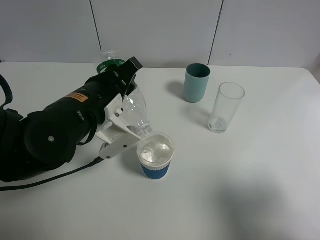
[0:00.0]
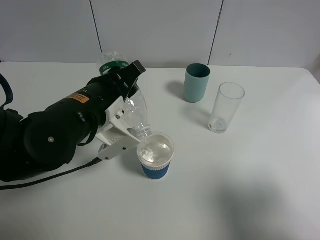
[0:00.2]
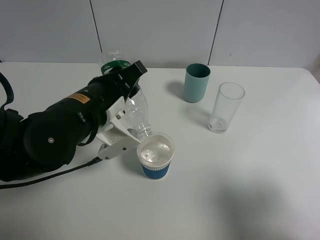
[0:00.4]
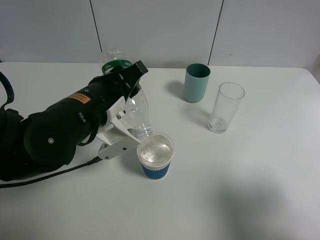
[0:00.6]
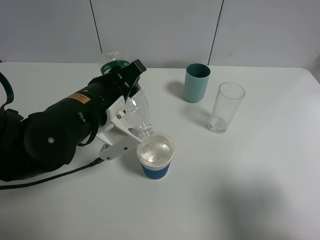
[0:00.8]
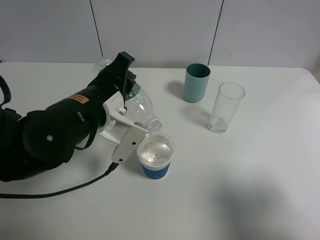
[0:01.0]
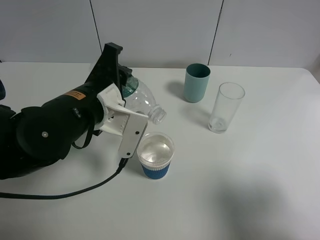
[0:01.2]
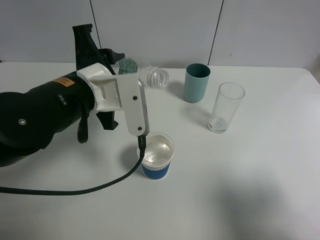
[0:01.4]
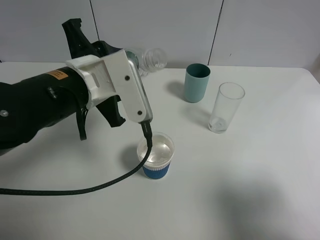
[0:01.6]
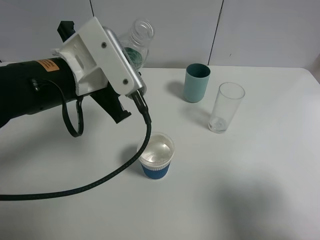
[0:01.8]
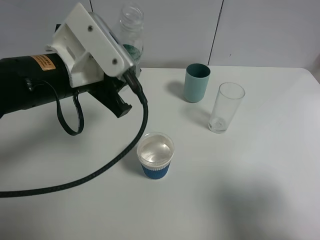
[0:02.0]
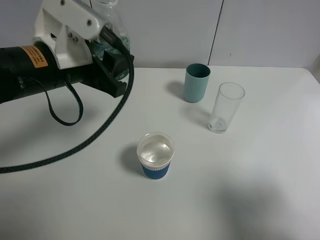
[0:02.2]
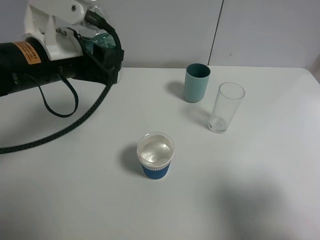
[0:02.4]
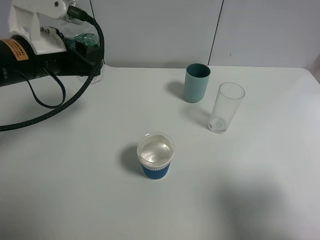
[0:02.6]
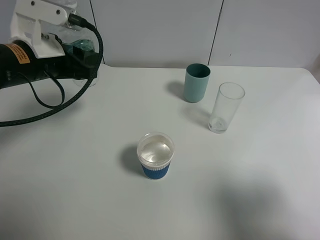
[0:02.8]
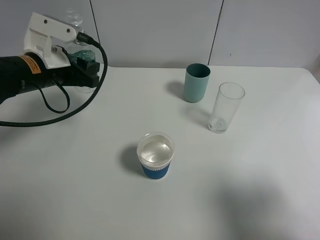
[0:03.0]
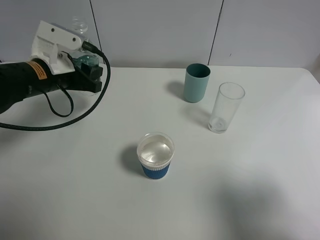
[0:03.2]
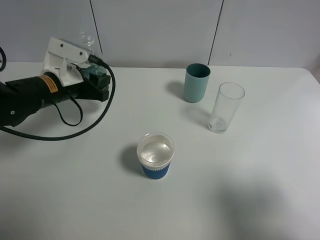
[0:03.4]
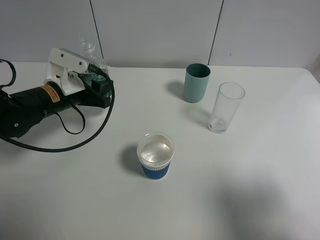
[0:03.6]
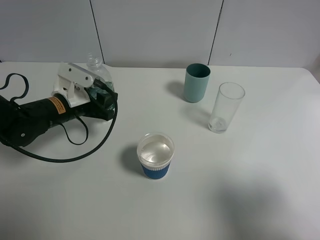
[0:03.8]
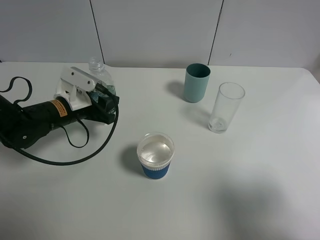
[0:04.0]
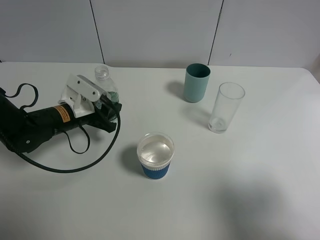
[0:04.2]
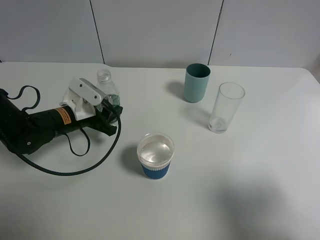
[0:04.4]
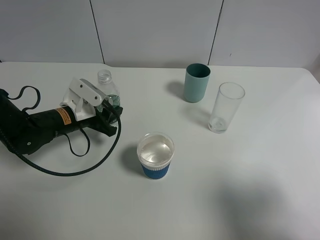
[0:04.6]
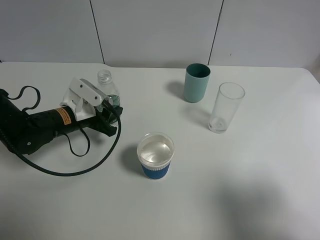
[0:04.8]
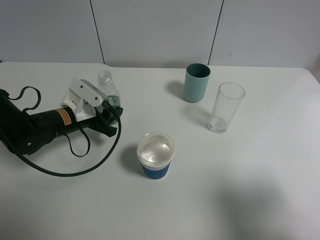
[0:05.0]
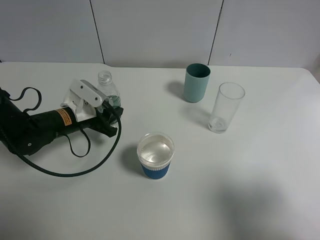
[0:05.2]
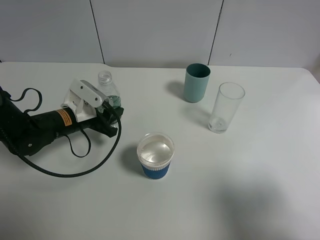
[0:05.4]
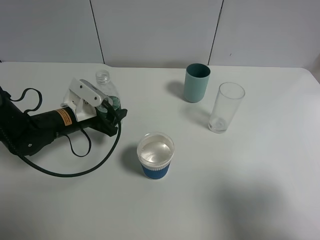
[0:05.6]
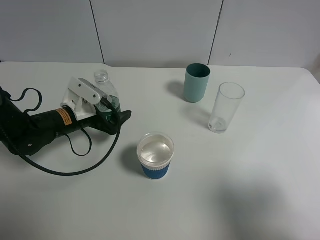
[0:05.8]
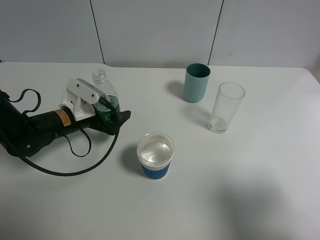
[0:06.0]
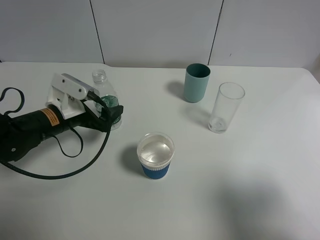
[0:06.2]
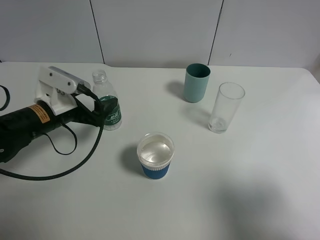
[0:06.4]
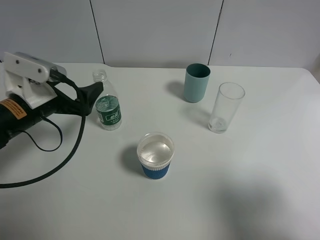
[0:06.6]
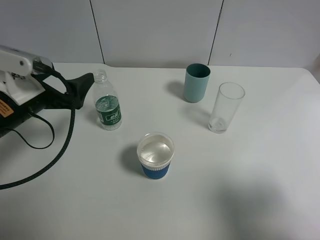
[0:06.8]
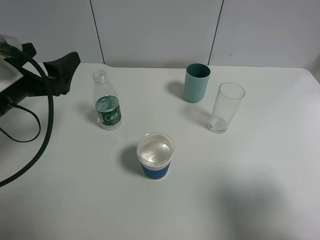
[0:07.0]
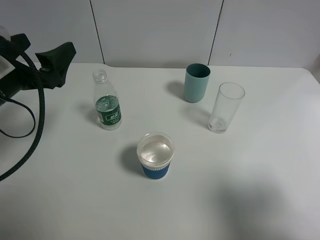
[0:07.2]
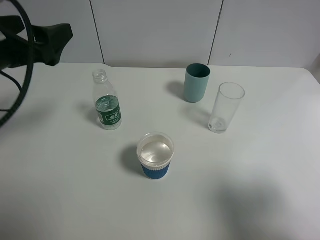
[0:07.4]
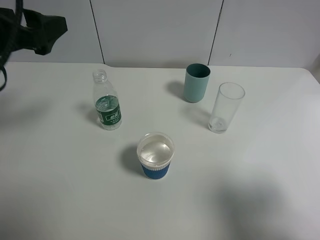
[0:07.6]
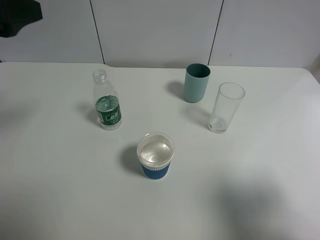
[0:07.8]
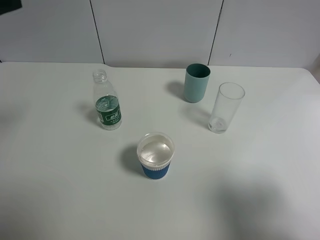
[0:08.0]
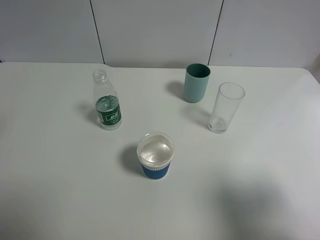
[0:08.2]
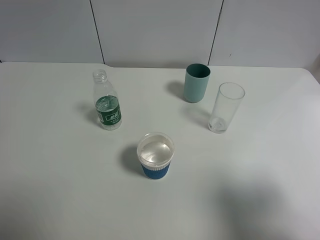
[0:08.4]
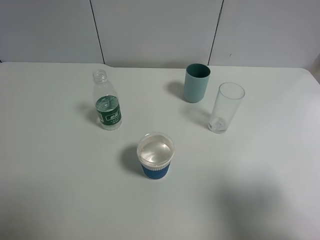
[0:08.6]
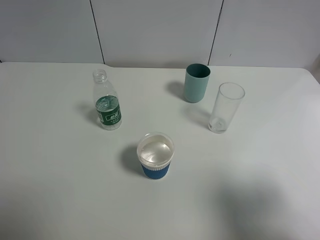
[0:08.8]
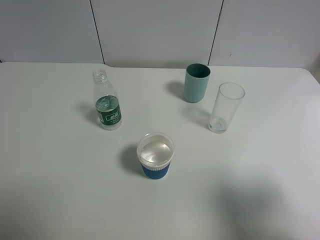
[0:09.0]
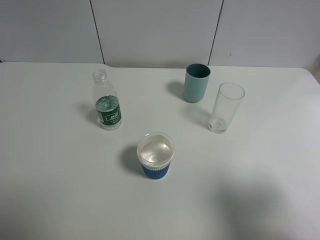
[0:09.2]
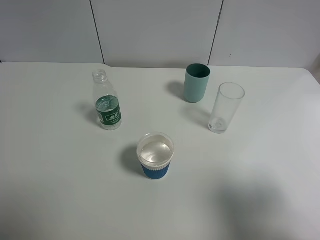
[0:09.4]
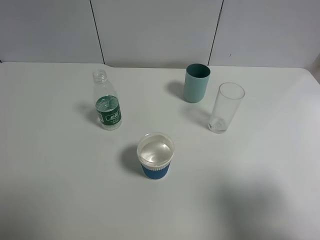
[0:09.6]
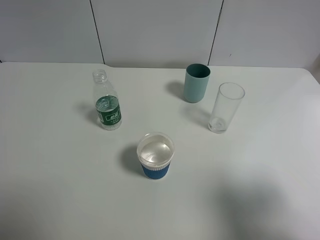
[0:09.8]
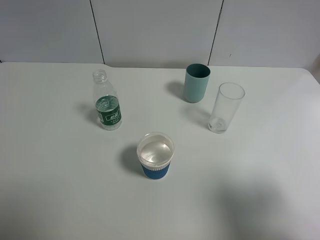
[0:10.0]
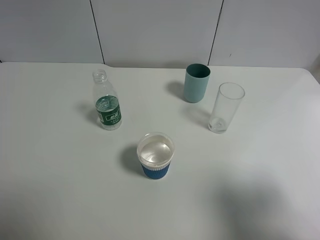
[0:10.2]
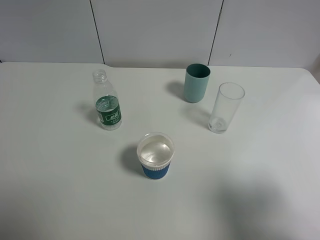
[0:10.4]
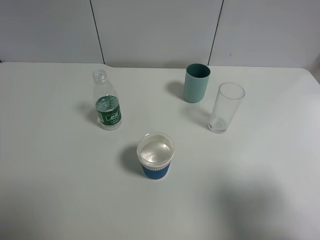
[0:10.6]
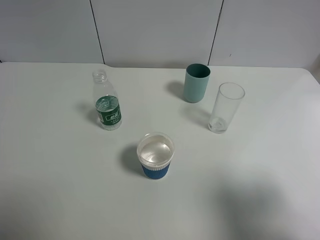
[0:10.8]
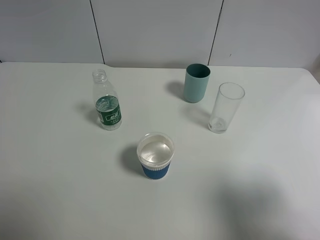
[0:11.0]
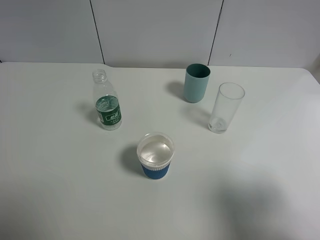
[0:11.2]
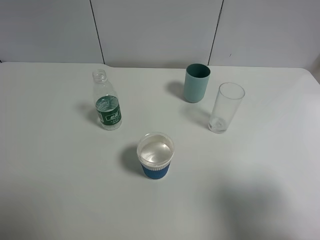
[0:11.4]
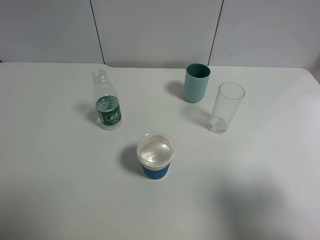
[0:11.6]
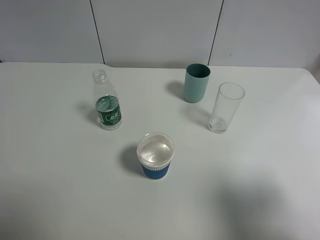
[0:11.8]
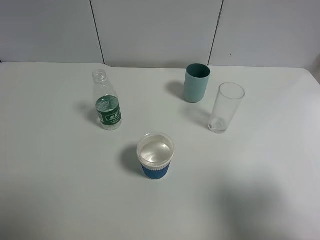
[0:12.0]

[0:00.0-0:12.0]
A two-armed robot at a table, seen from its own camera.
Task of the whole recording: use a gripper to hold the bottle of the drink and pour it into a random cup.
Step, 1.4 to 6.4 s: Place the mineral water bottle on the table with the left gripper.
1.6 to 3.0 s: The left gripper travels to the left and forward by some 15 cm.
3.0 to 4.4 s: The left gripper is displaced downward by some 10 cm.
4.4 to 6.0 s: The left gripper opens up.
6.0 to 7.6 s: The left gripper is displaced upward by approximately 20 cm.
7.6 to 9.0 s: The left gripper shifts approximately 20 cm backward.
10.4 to 12.0 s: Neither gripper changes place.

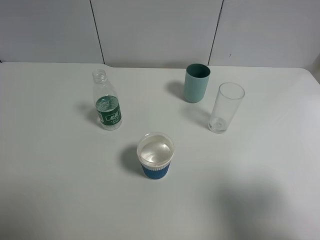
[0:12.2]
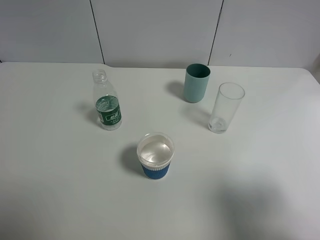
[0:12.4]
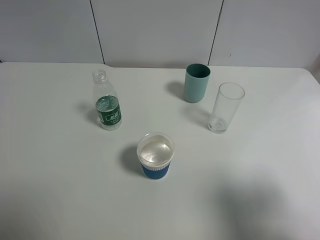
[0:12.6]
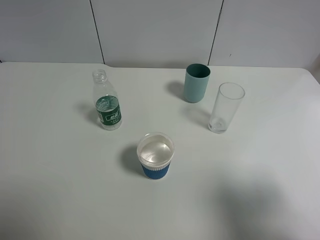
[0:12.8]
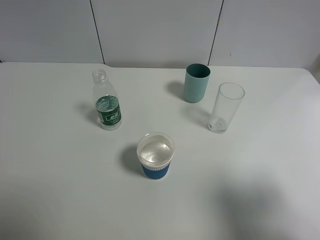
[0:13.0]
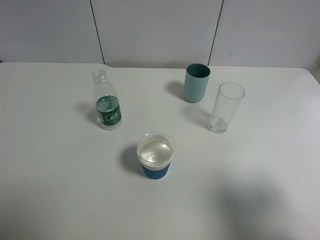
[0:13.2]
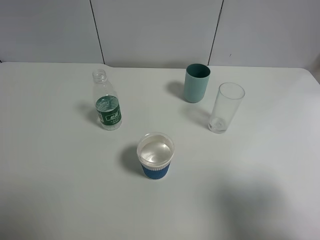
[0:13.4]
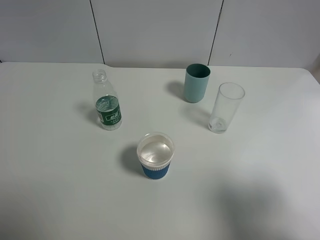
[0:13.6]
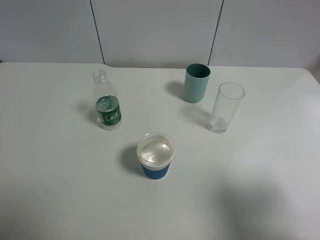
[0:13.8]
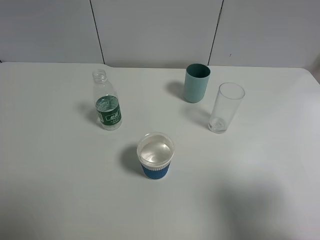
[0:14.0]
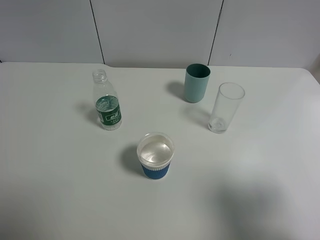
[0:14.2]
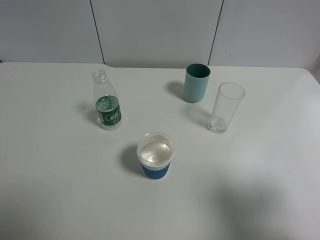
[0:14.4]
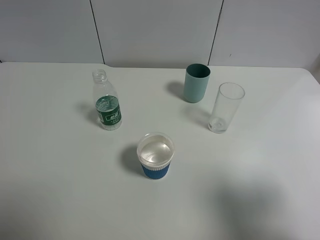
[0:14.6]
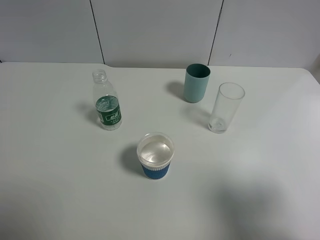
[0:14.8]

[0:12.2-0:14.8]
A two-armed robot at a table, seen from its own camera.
Task of the whole recording: use a gripper to hold the bottle of the drink and pour it into a random cup.
12.2 to 14.8 s: Both grippers stay put.

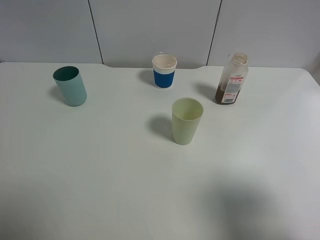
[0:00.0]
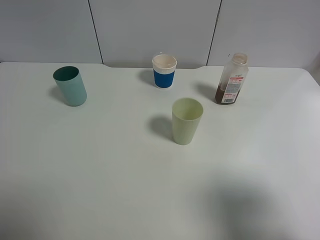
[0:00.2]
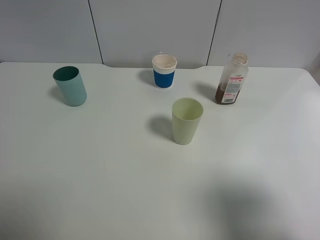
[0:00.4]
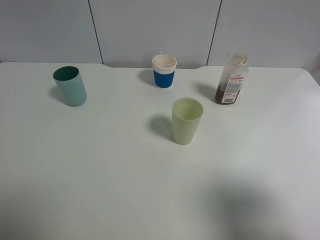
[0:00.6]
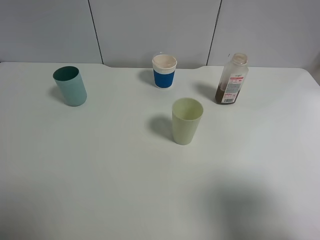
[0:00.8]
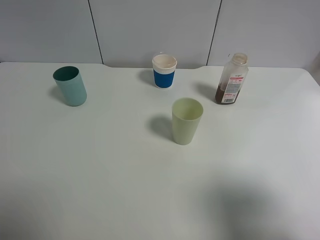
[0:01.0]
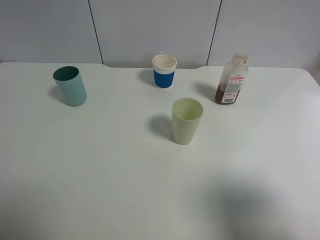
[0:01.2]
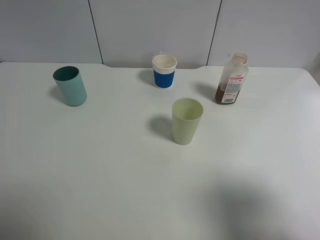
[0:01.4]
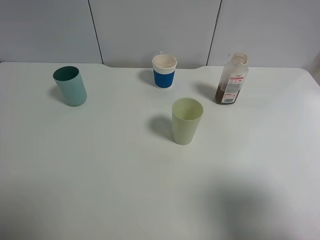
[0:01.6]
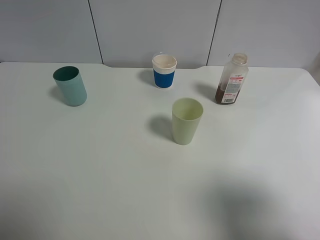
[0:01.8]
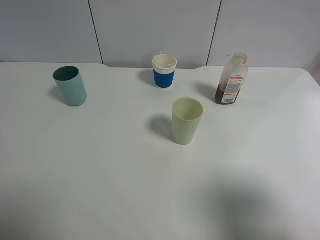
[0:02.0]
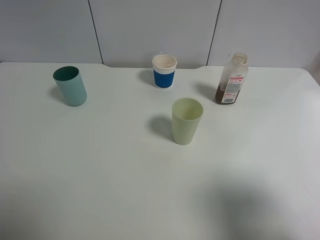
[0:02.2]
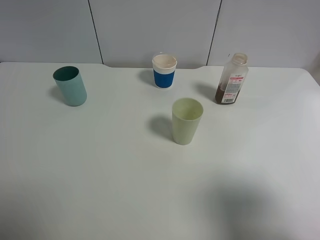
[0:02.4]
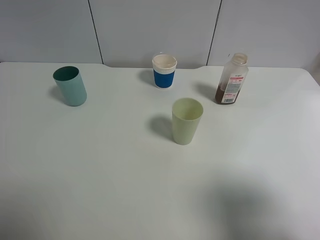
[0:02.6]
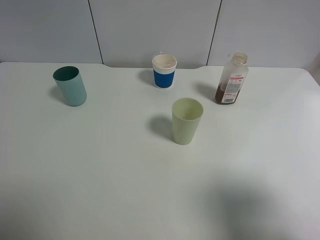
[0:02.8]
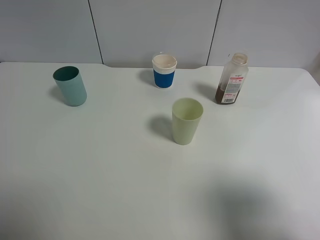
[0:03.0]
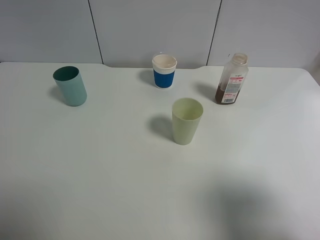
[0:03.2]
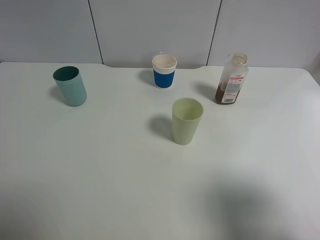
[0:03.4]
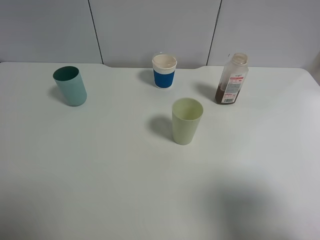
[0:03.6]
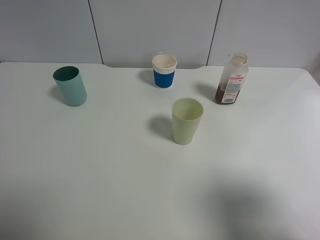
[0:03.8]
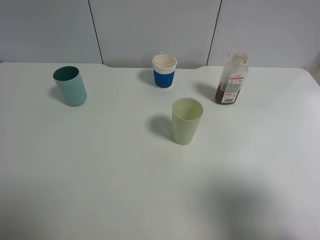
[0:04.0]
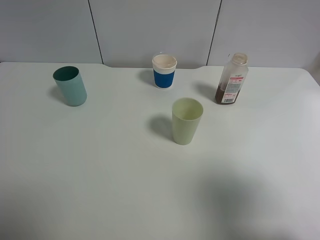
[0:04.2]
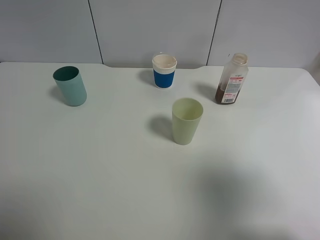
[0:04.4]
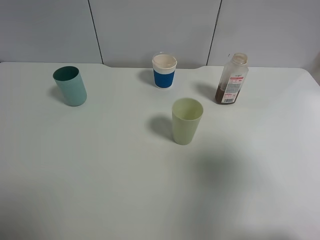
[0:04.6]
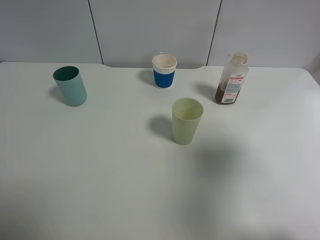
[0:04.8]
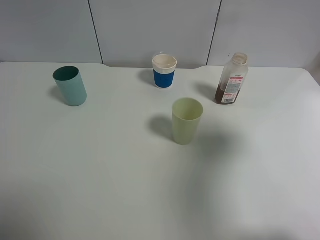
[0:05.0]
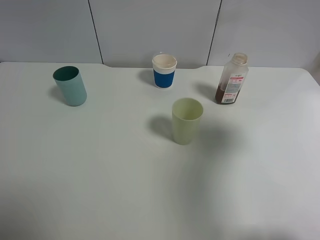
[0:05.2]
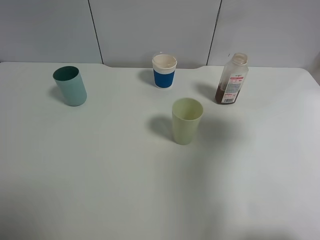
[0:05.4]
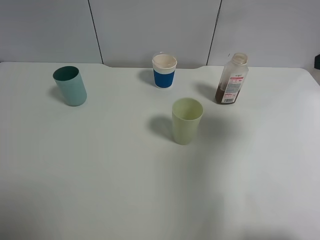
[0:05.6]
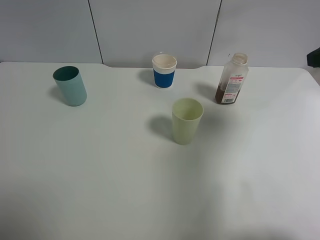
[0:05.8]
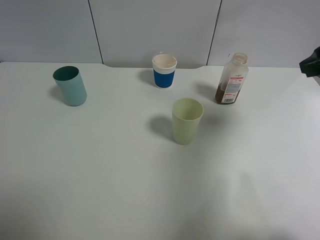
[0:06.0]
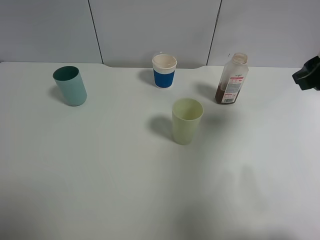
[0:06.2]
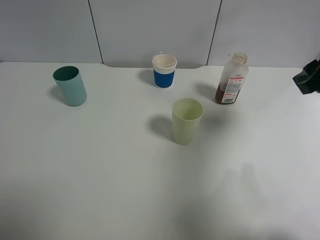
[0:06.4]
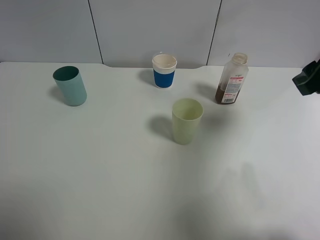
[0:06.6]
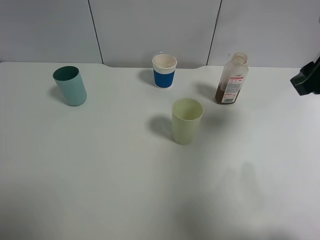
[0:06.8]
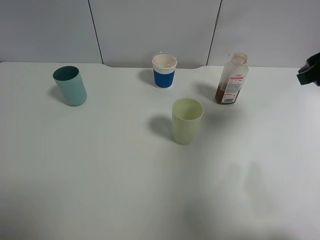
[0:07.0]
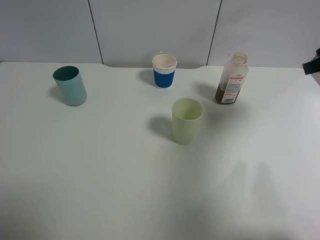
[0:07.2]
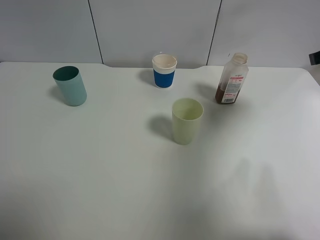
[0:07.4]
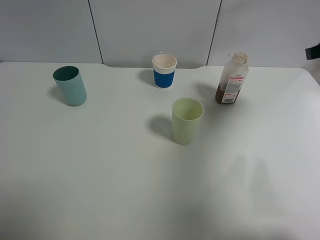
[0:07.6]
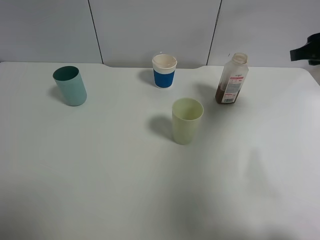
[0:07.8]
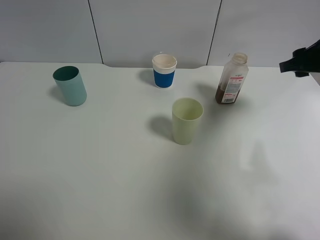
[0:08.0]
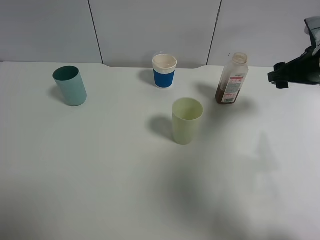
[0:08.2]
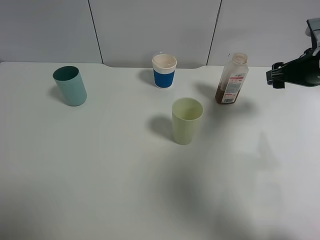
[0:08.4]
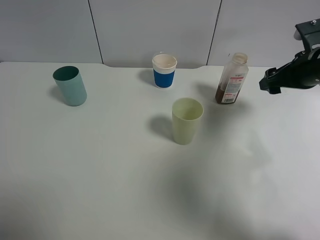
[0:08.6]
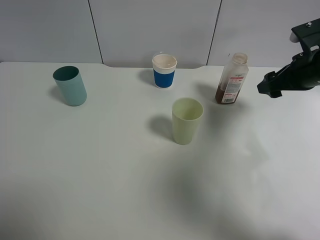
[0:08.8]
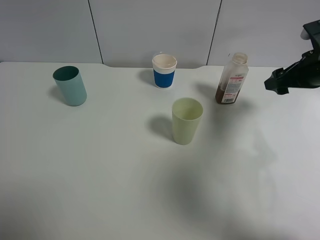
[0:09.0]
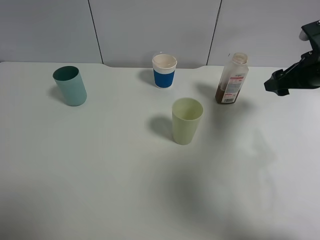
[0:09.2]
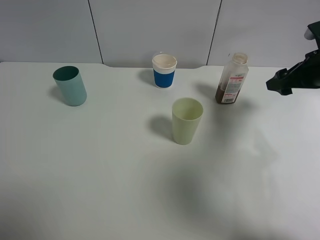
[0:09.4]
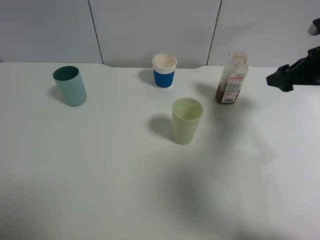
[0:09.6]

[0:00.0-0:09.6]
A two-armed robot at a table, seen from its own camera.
Task of the whole recording: use a gripper to hold the bottle of the drink and pour it into a random cup.
0.0 to 3.2 s: Both grippers stay put.
3.2 to 4.8 s: The right gripper goes roughly 10 cm forward and upward.
4.8 to 6.4 s: The right gripper shifts about 15 cm forward.
6.4 to 8.0 s: The right gripper is displaced forward by approximately 5 cm.
8.0 to 9.6 s: There are only small adjustments of the grippers.
